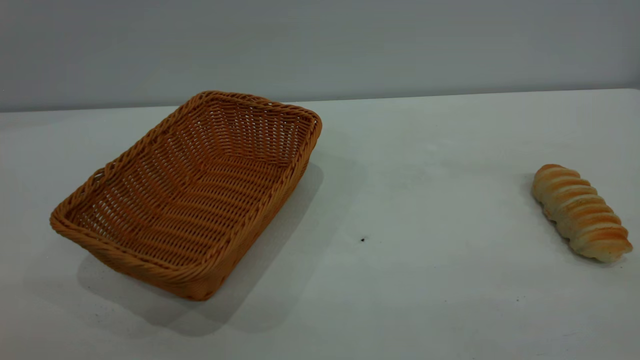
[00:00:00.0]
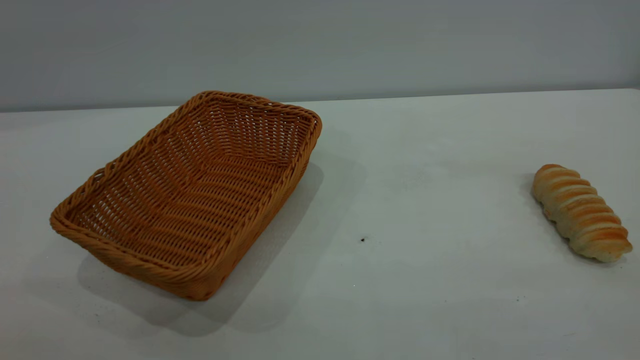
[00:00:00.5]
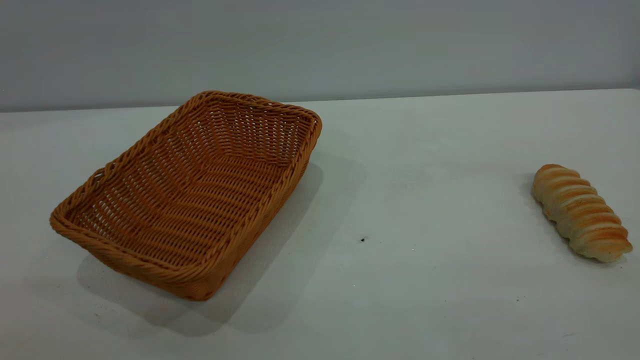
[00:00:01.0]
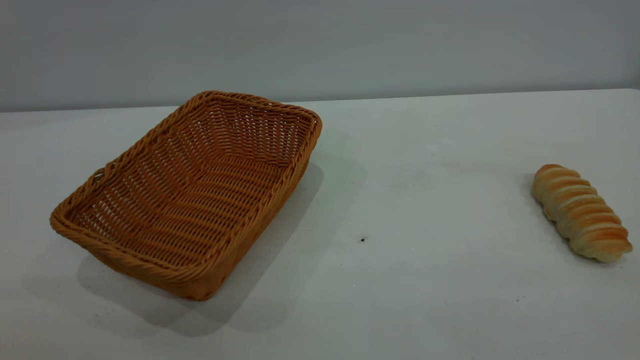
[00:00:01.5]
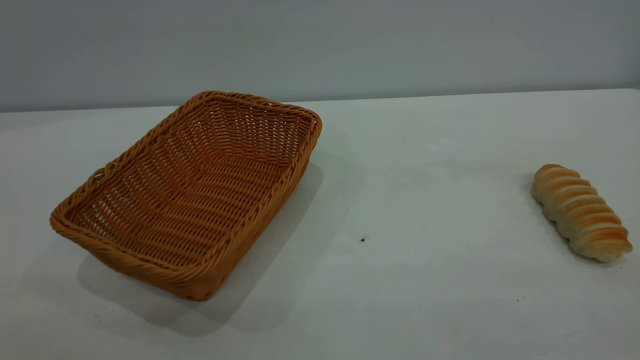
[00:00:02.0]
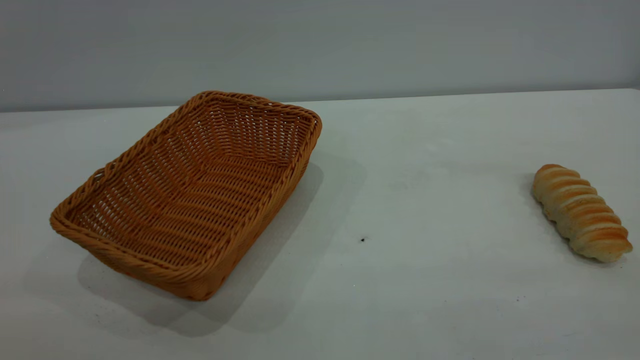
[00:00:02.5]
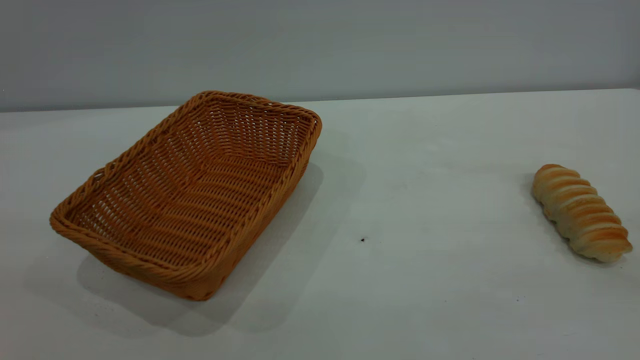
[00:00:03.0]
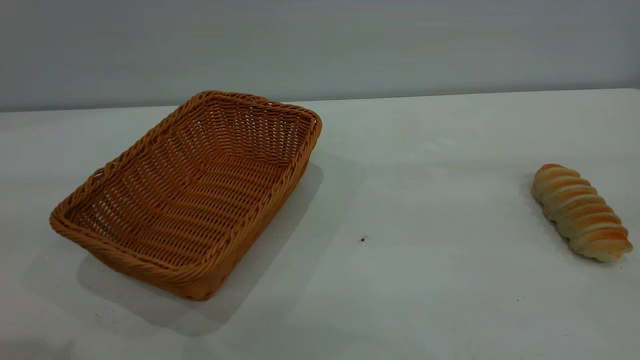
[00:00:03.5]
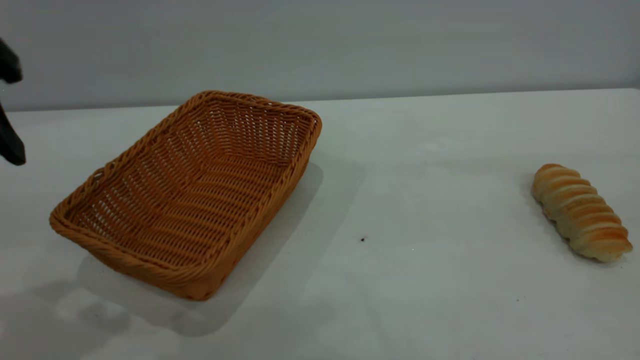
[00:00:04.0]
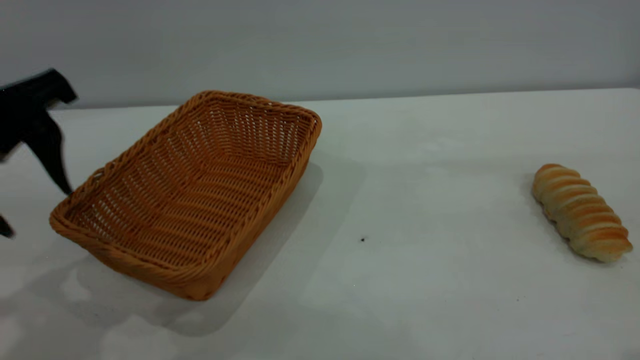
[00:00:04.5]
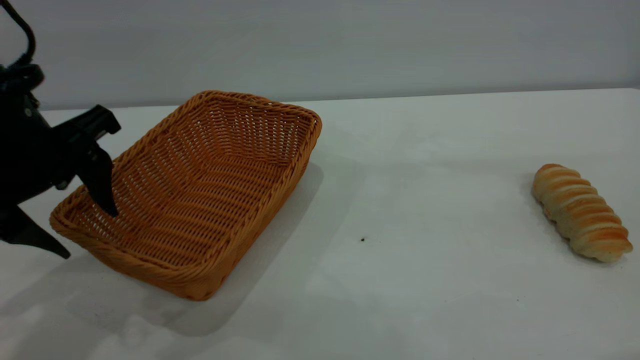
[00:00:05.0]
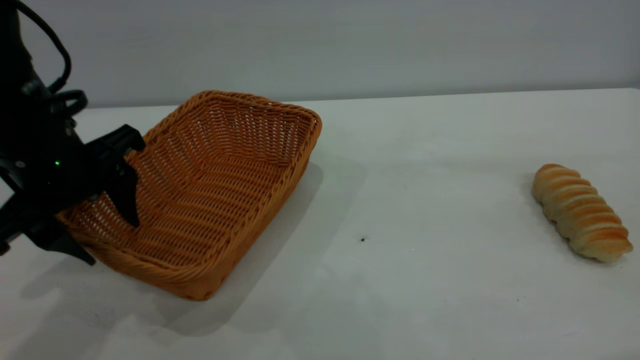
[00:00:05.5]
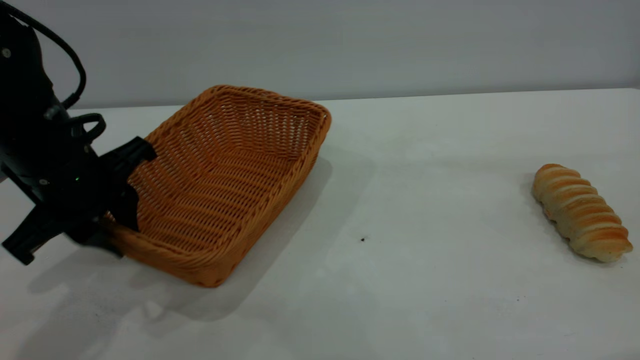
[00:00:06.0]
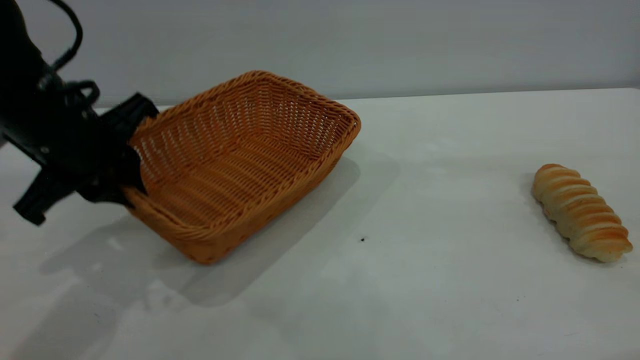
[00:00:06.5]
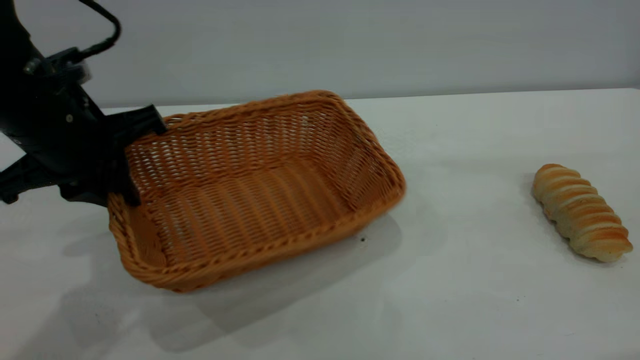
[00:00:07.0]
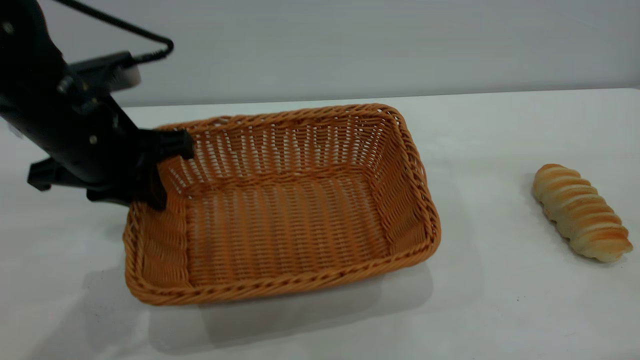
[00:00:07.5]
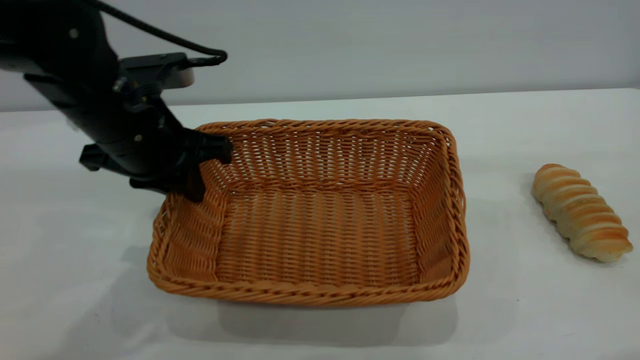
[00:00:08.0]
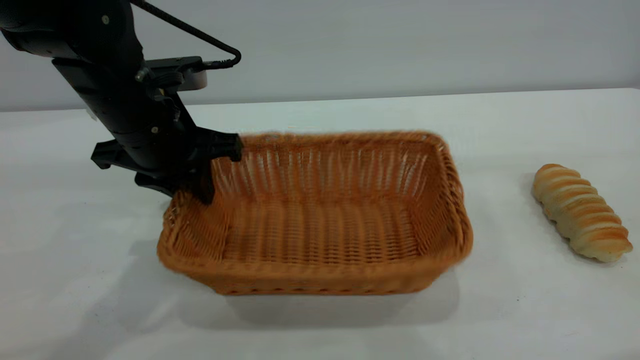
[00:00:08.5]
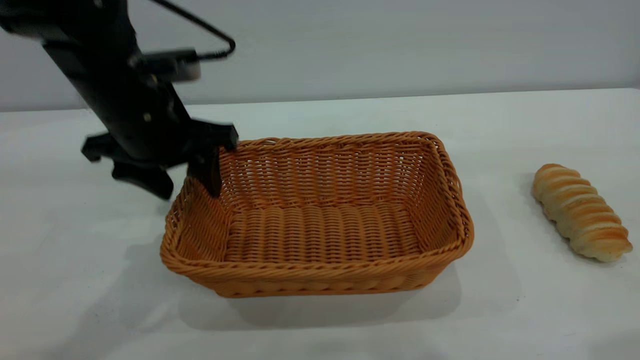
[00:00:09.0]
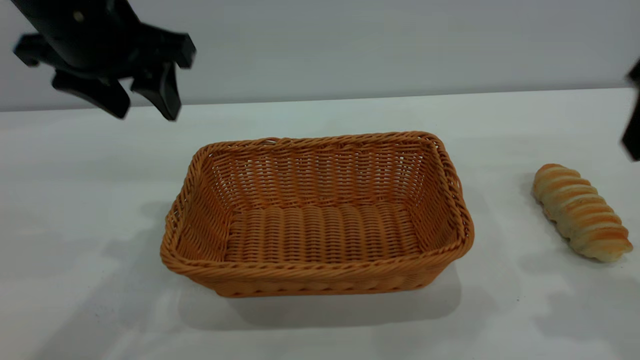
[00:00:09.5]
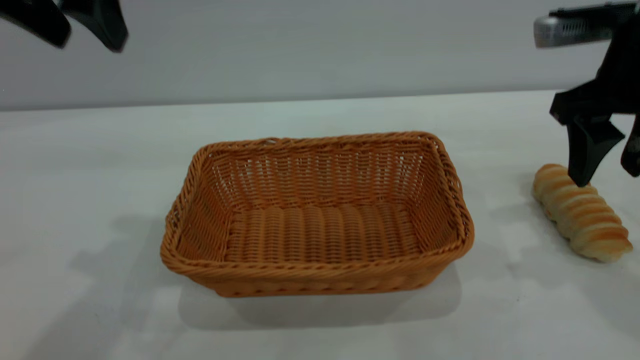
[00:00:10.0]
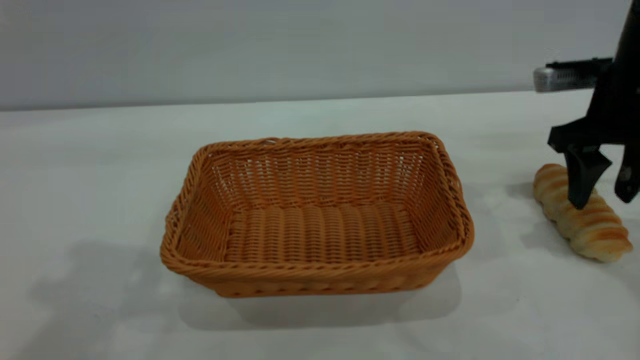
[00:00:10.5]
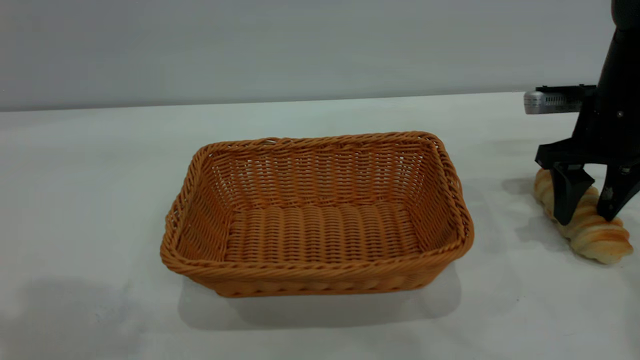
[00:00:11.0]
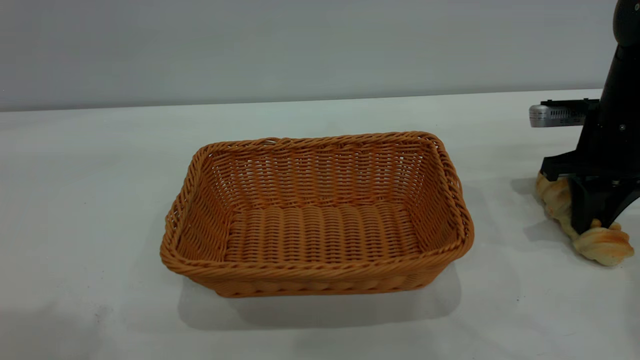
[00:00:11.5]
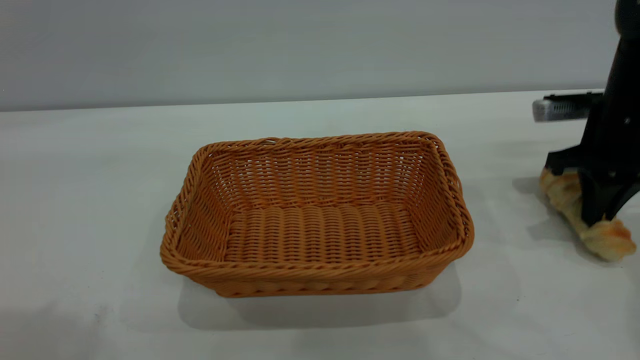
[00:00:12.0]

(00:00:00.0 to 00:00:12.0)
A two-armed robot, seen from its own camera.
Task of the whole recording: One hand grasps the yellow basket and places it in the middle of the table, while the other hand picks up the long bread and puts it into the yellow basket.
Step, 00:00:00.0 - 00:00:09.0: Move the basket to the center of view.
00:00:02.0 - 00:00:04.0: The left gripper travels forward by roughly 25 cm.
00:00:04.0 - 00:00:06.0: The left gripper travels downward and forward by some 15 cm, and closes up.
00:00:06.0 - 00:00:08.0: The left gripper shifts some 5 cm to the right.
00:00:08.0 - 00:00:10.0: The left gripper heads upward, covering about 20 cm, and opens its fingers. Meanwhile the right gripper heads forward and downward, covering approximately 25 cm.
00:00:10.0 - 00:00:12.0: The left gripper travels backward and upward by some 15 cm. Meanwhile the right gripper is displaced downward and forward by some 10 cm, and closes its fingers.

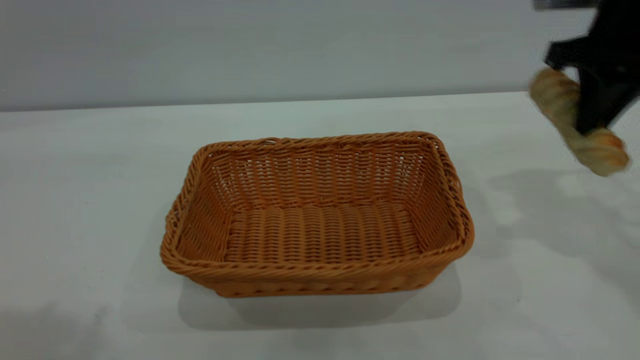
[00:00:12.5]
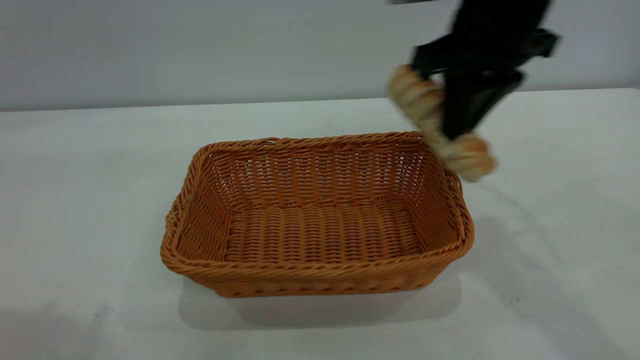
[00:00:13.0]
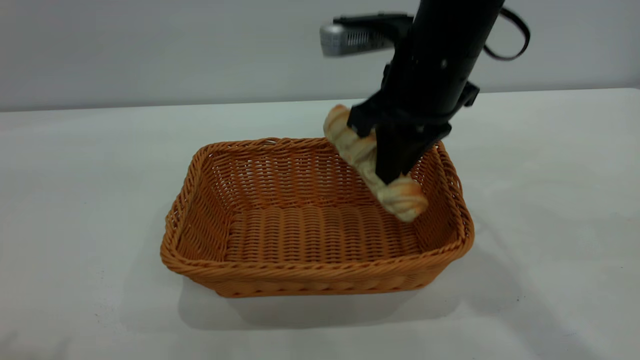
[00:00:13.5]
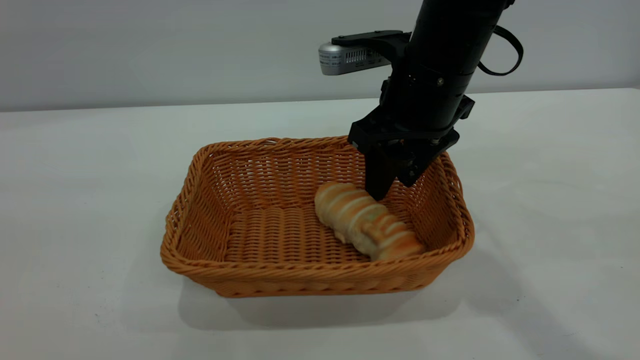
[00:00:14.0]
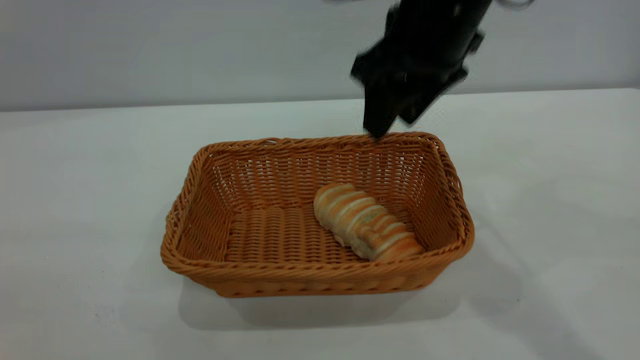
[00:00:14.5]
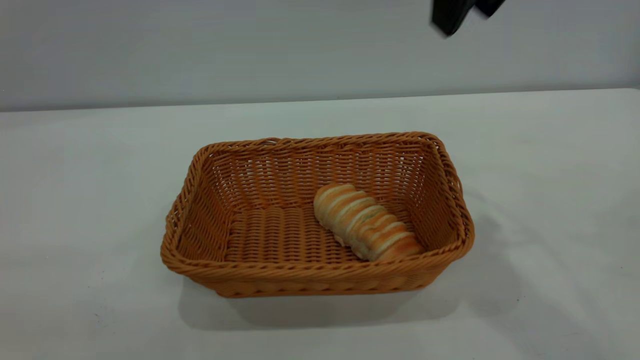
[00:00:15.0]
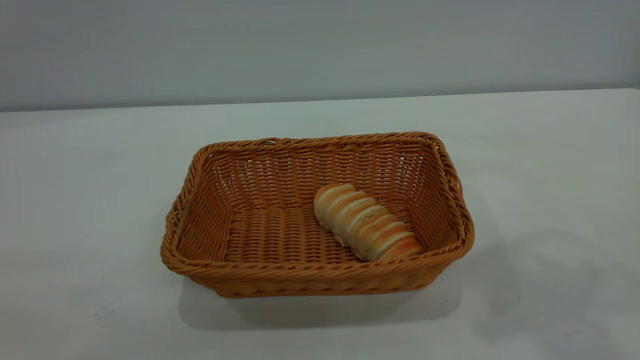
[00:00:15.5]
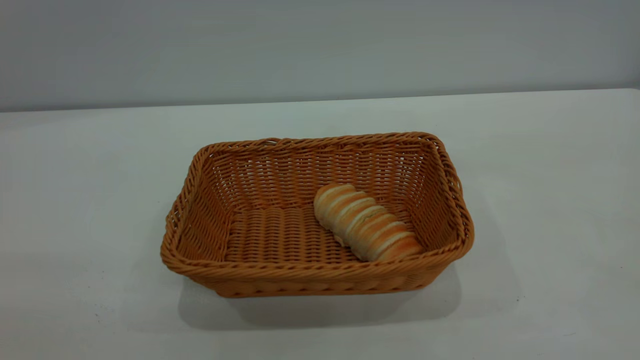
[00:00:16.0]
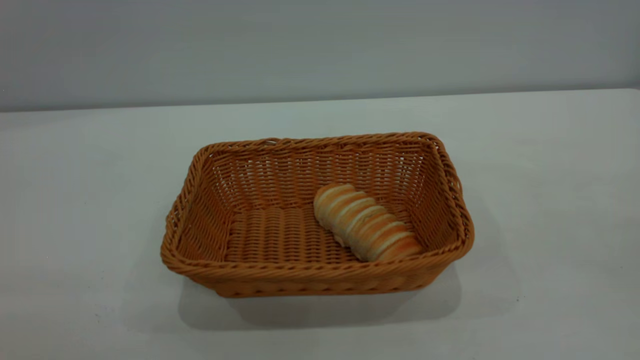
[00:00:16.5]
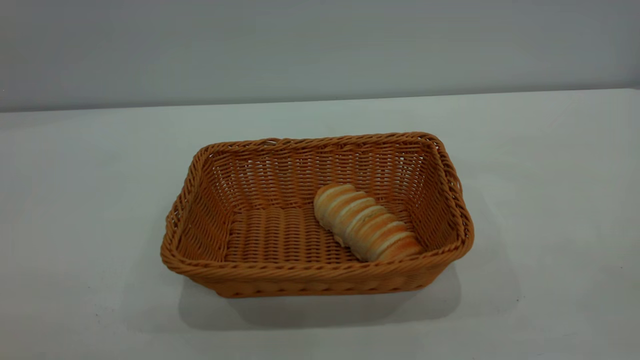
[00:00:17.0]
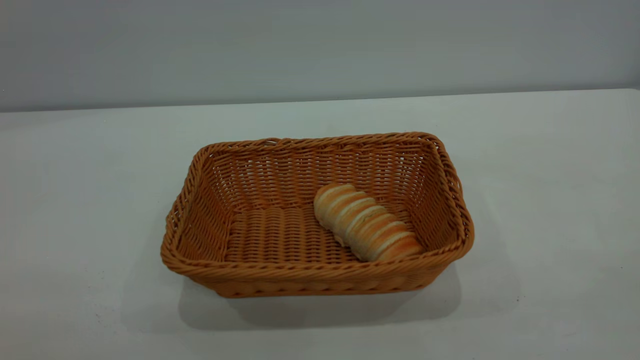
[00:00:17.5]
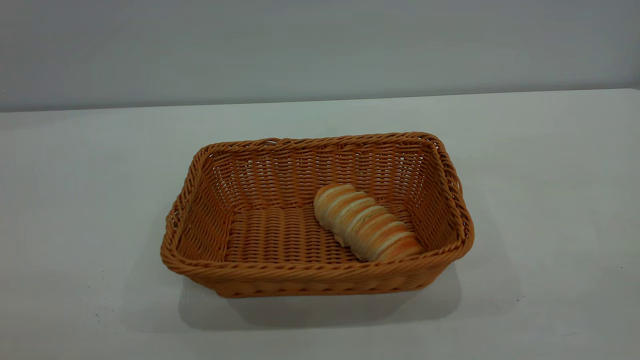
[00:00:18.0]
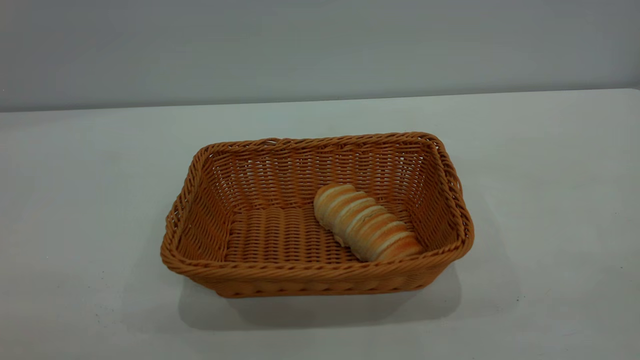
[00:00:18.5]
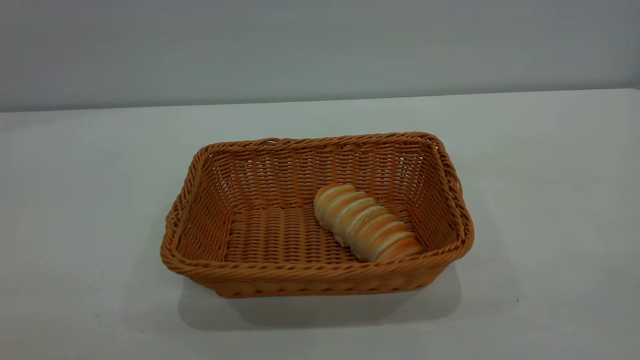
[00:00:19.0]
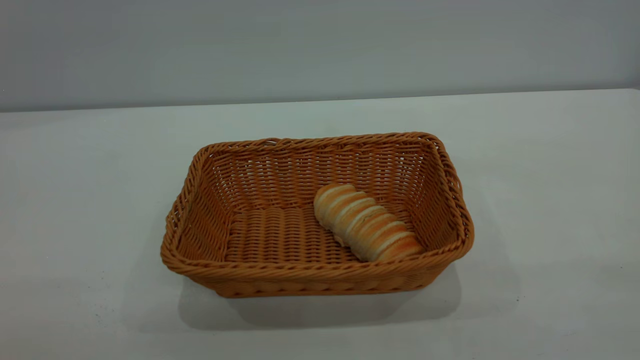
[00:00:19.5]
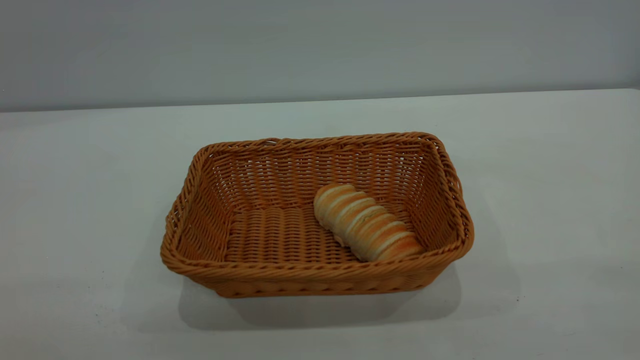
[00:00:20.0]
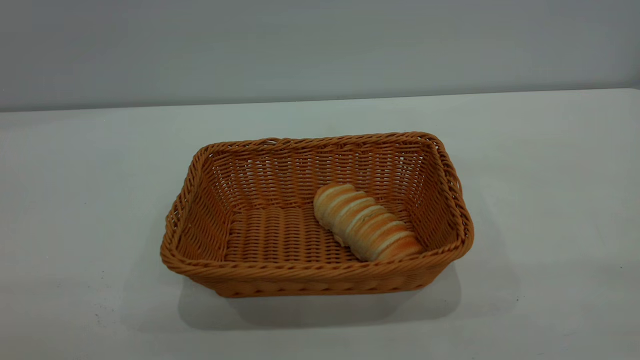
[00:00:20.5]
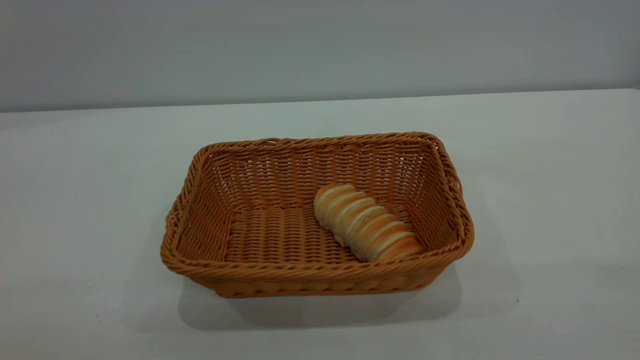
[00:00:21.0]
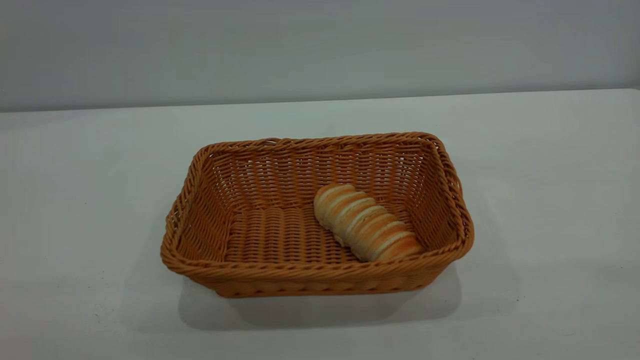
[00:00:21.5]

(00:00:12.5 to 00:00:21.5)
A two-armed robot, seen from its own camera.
Task of the whole recording: One hand grasps the yellow basket and places it in the middle of the table, while the other hand picks up the long bread and puts it into the yellow basket.
Step, 00:00:12.5 - 00:00:14.5: place the bread into the basket.
00:00:12.5 - 00:00:14.5: The right gripper is displaced to the left by roughly 15 cm, and opens up; the left gripper travels backward, downward and to the left by approximately 20 cm.
00:00:14.5 - 00:00:17.0: The right gripper moves backward and to the right, approximately 50 cm. The left gripper changes place by approximately 5 cm.
00:00:19.5 - 00:00:21.5: Both grippers stay put.
